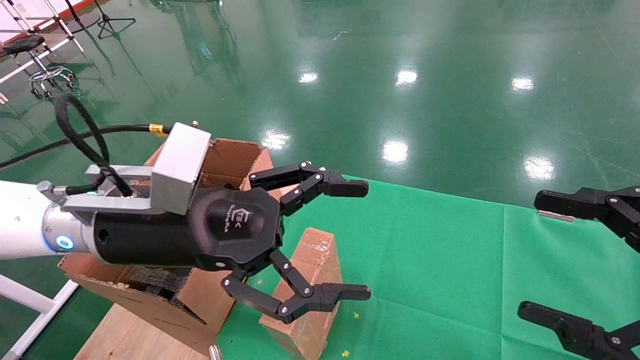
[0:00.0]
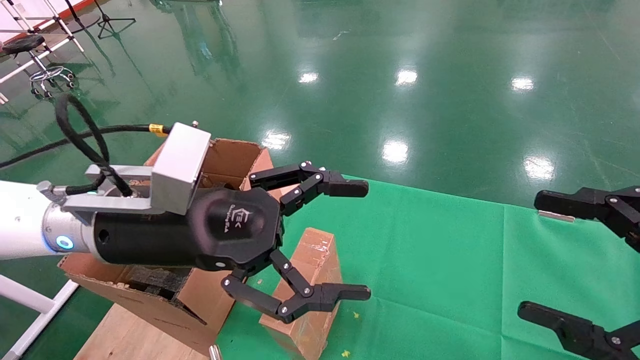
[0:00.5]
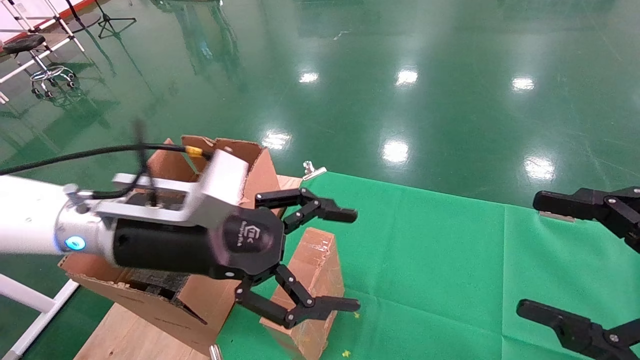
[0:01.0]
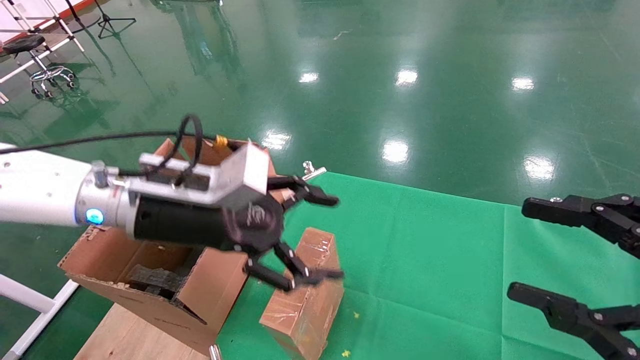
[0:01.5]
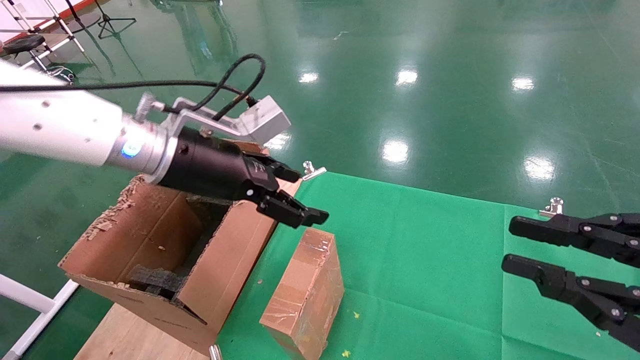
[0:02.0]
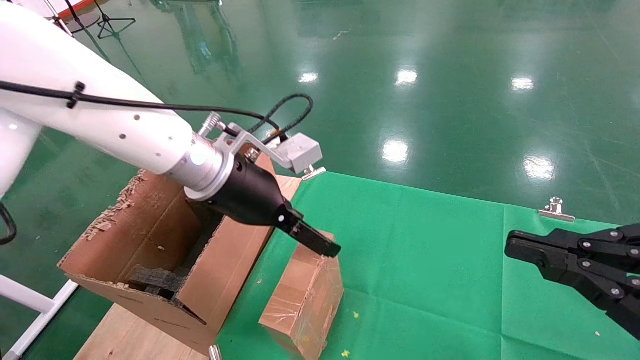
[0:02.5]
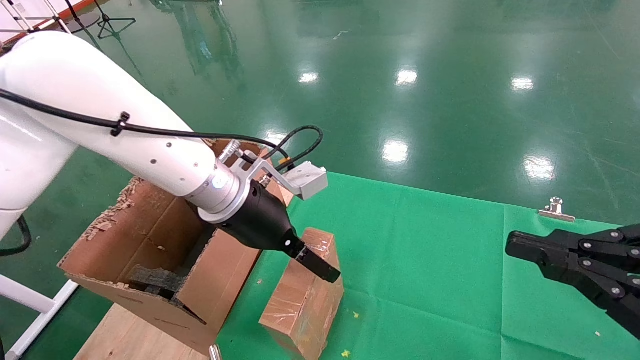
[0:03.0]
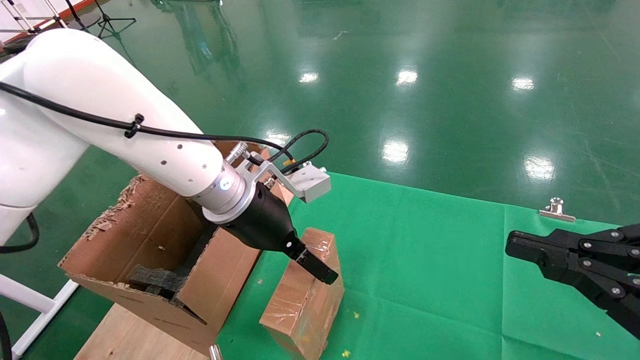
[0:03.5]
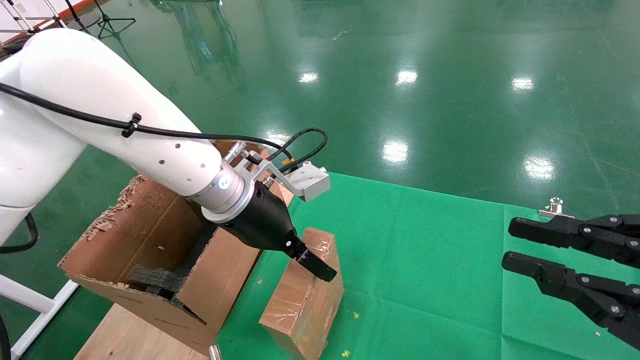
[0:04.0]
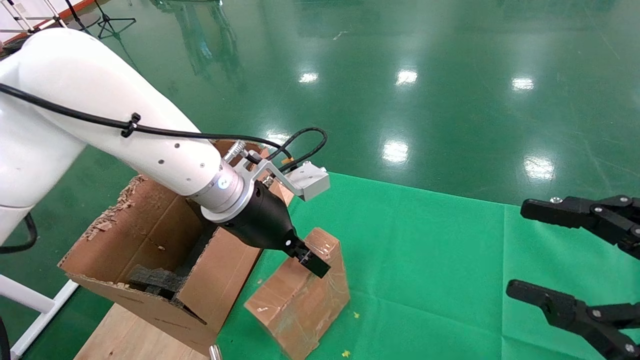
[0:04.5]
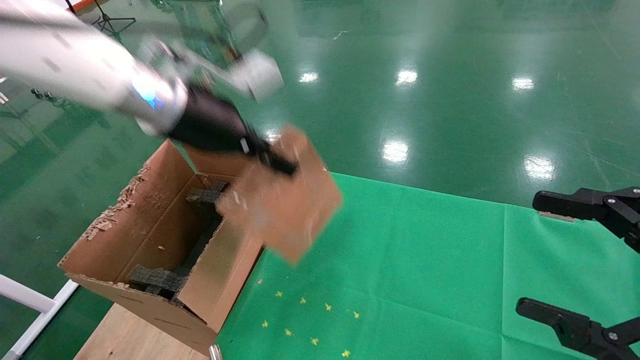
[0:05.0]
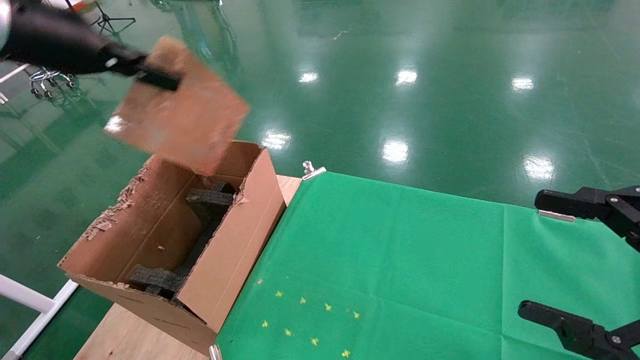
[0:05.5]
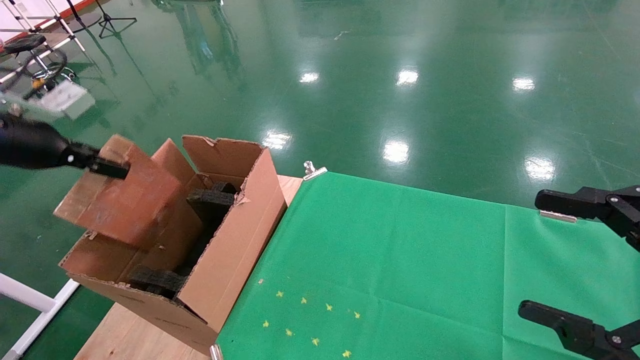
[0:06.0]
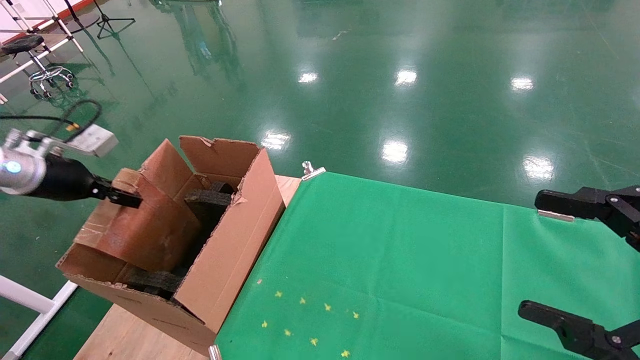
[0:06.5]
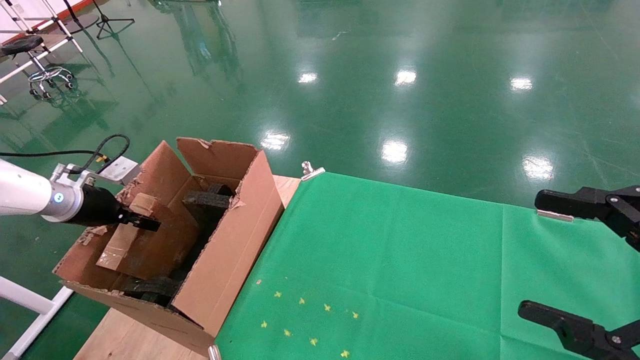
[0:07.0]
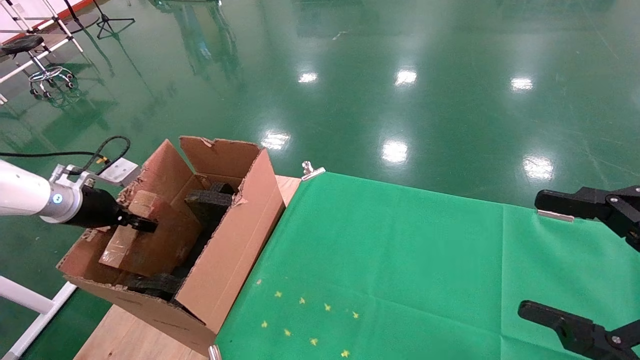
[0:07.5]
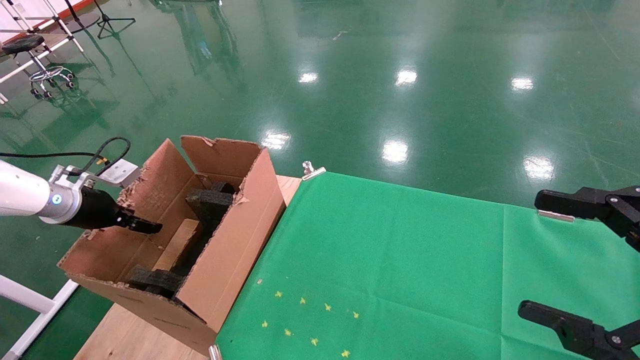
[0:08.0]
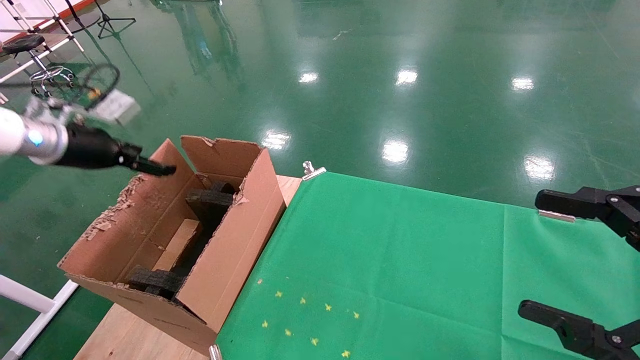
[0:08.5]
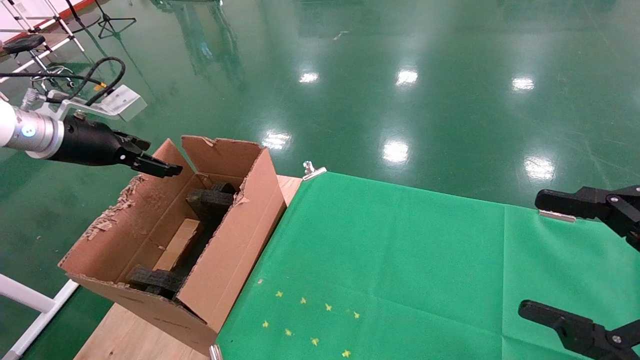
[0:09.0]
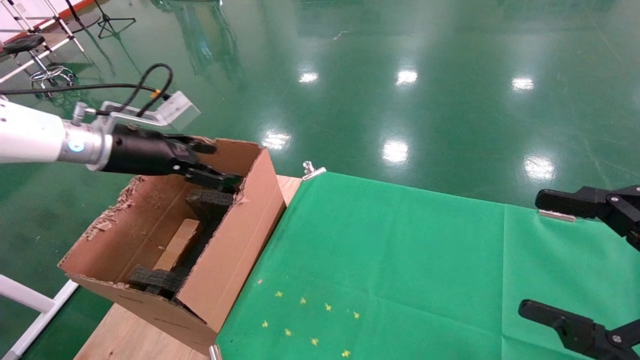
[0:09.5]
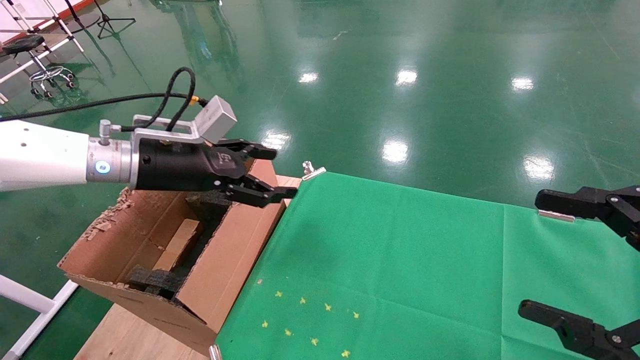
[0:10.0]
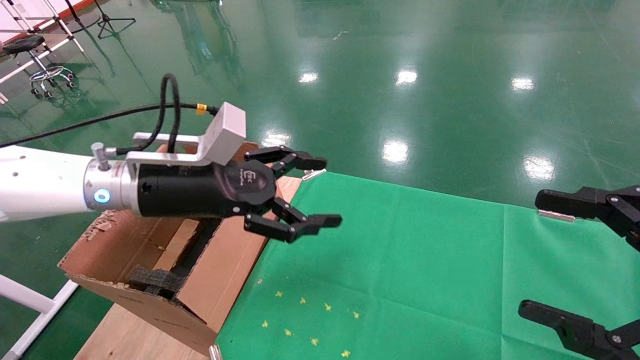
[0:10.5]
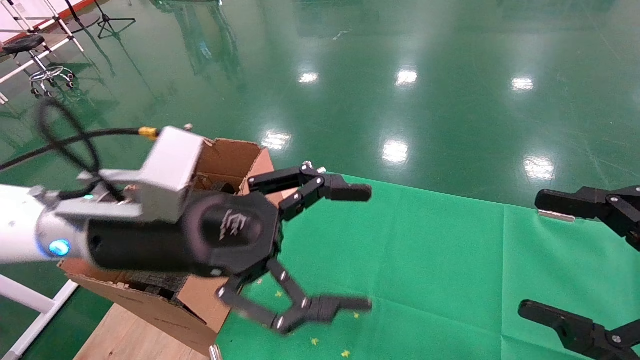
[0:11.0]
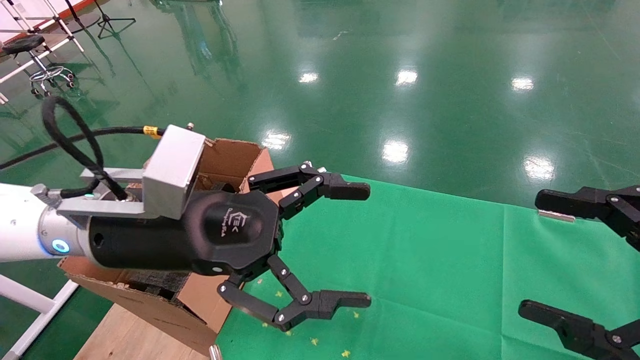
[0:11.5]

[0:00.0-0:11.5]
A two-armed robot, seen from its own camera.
Task of the whole recording: using a robotic arm to pick up a cardboard box and palace it the carton.
Step, 0:01.0 to 0:04.5: Pick up the mouse and the power cord paper box.
Step, 0:05.0 to 0:08.5: Place the mouse and the power cord paper box into the container.
0:00.0 to 0:02.0: The left gripper is displaced forward by about 10 cm. The right gripper closes its fingers.
0:02.0 to 0:04.0: The left gripper shifts some 5 cm to the right.
0:04.0 to 0:06.0: The left gripper goes roughly 35 cm to the left, and closes its fingers. The right gripper opens its fingers.
0:06.0 to 0:07.5: The left gripper travels downward and forward by about 15 cm.
0:07.5 to 0:09.5: The left gripper goes approximately 15 cm to the right and upward, and opens its fingers.
0:09.5 to 0:11.5: The left gripper moves to the right and backward, roughly 20 cm.

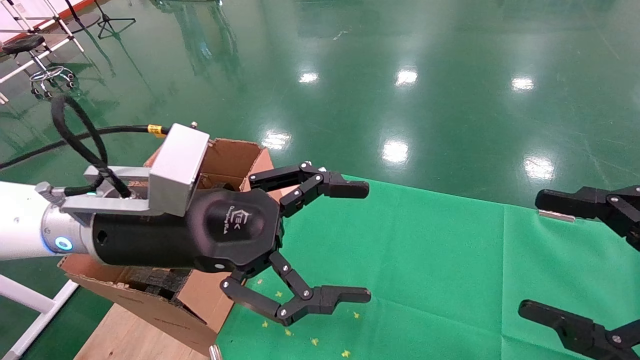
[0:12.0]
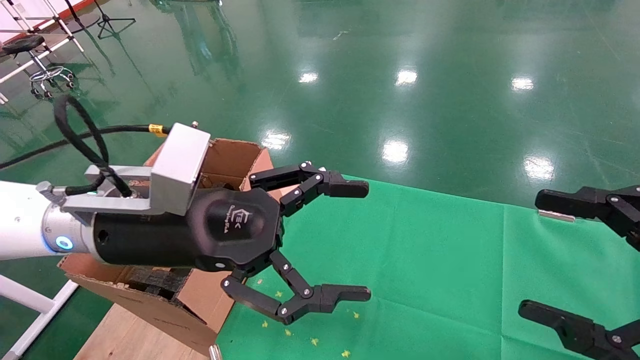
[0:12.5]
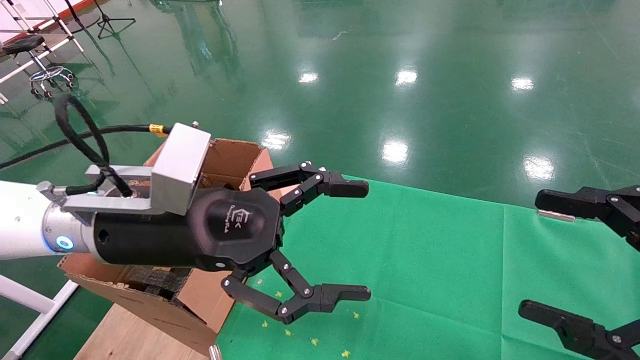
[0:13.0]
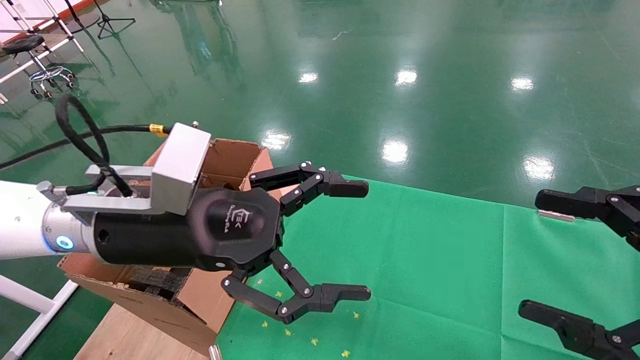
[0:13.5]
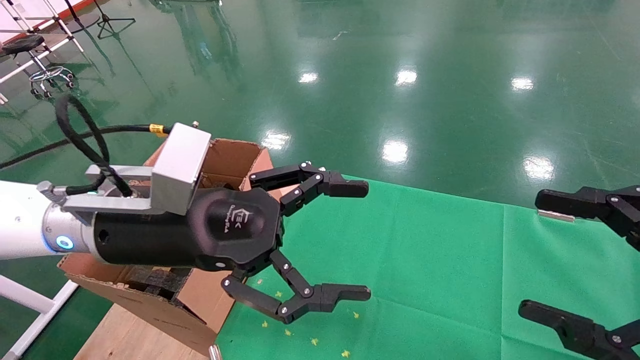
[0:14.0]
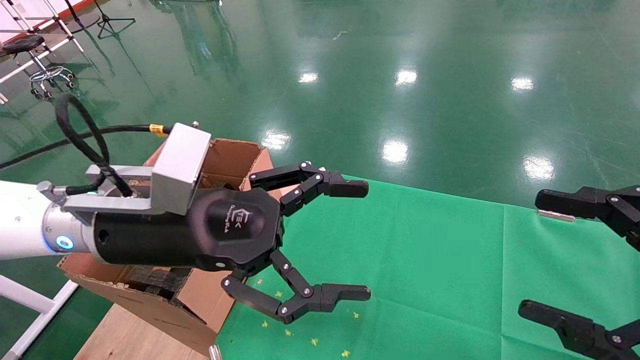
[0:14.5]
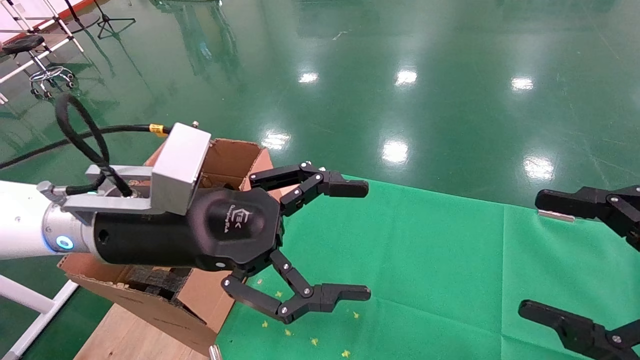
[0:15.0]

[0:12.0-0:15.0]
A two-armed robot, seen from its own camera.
Task of the whole recording: using a robotic arm to pick up a cardboard box and palace it the carton.
0:12.0 to 0:15.0: Neither gripper changes place.

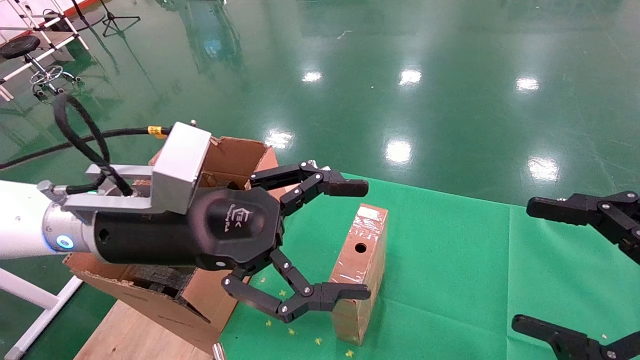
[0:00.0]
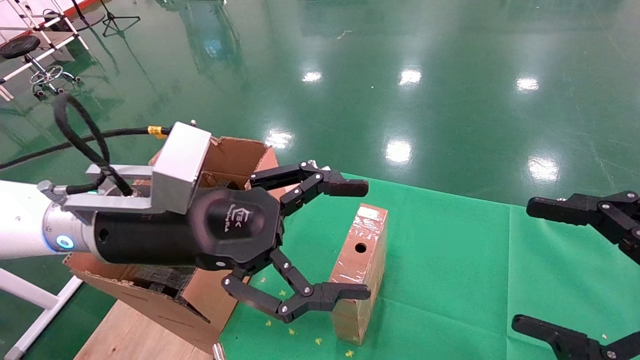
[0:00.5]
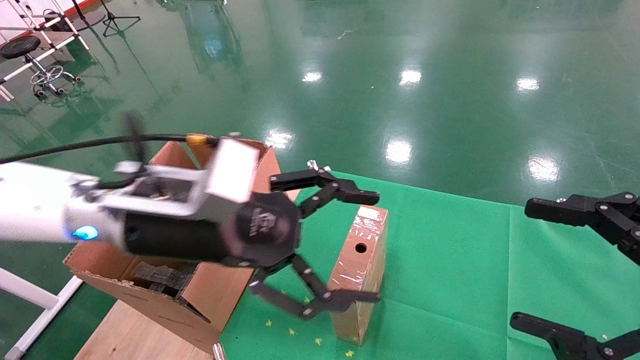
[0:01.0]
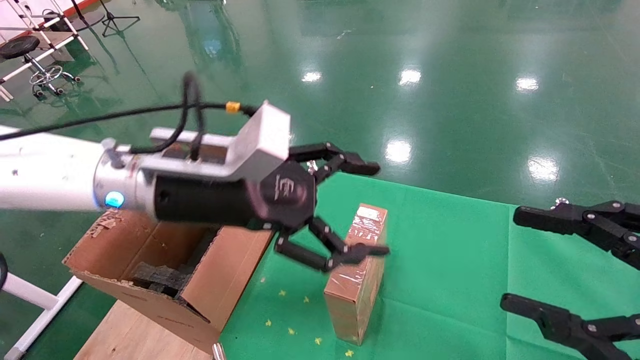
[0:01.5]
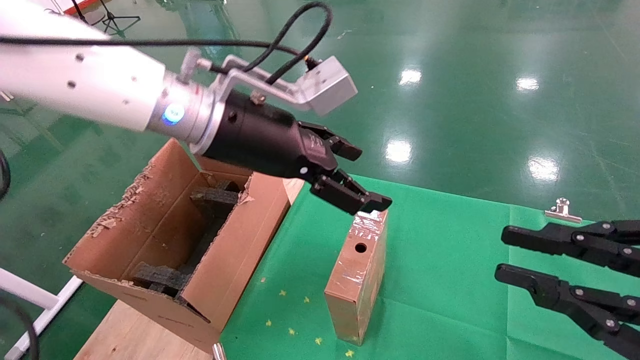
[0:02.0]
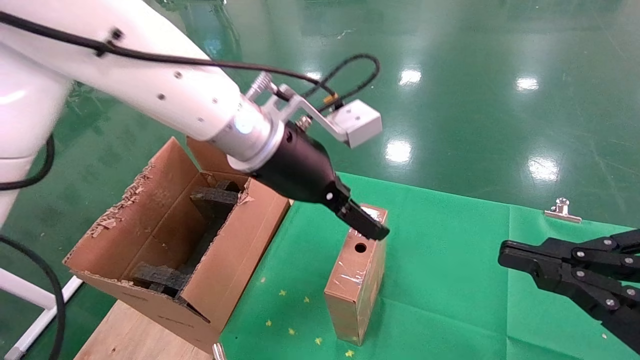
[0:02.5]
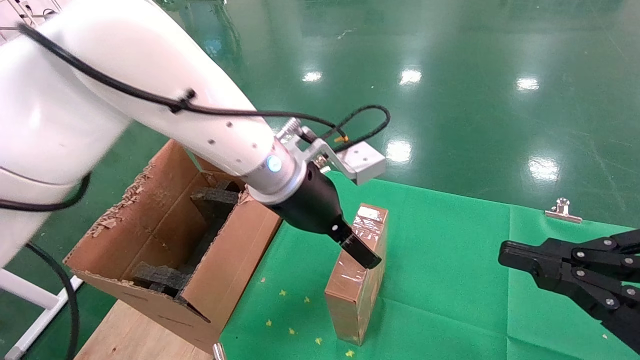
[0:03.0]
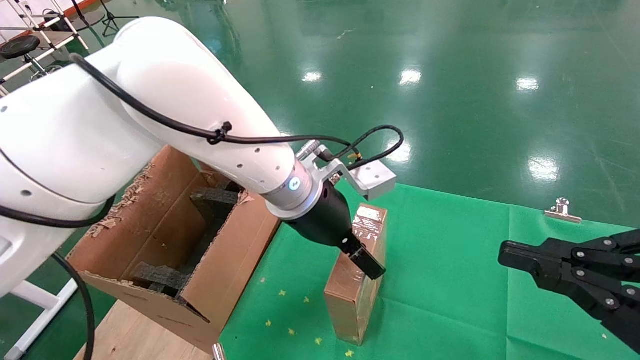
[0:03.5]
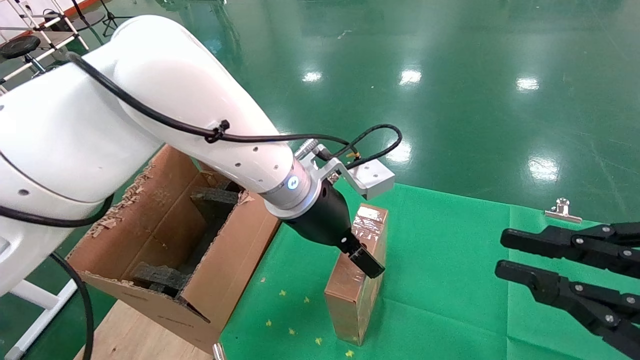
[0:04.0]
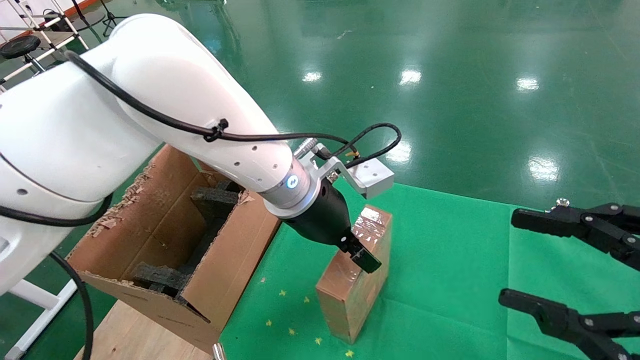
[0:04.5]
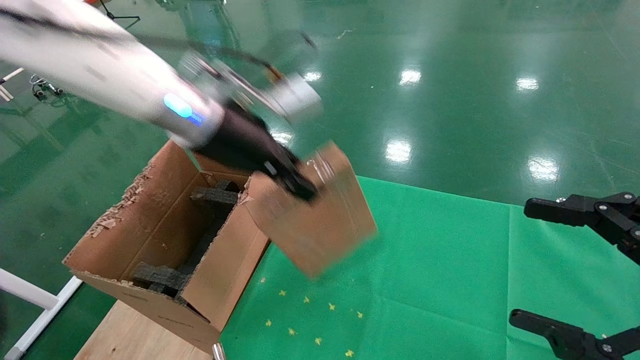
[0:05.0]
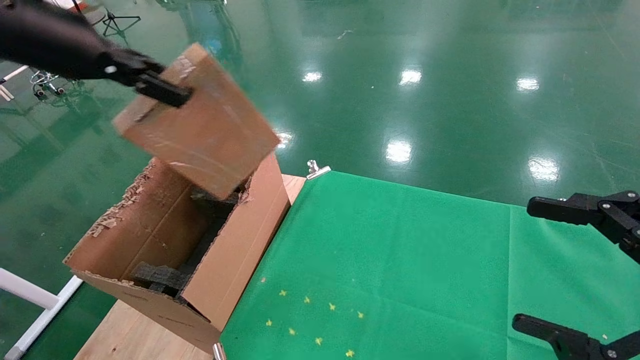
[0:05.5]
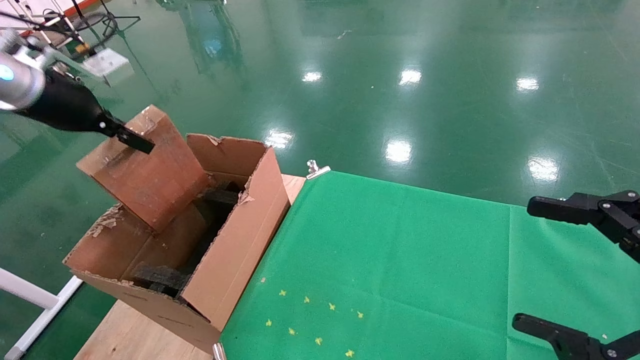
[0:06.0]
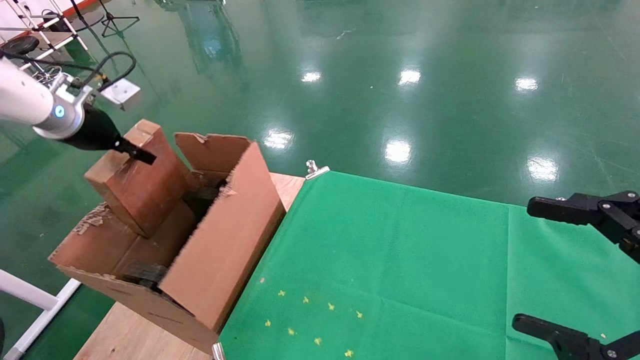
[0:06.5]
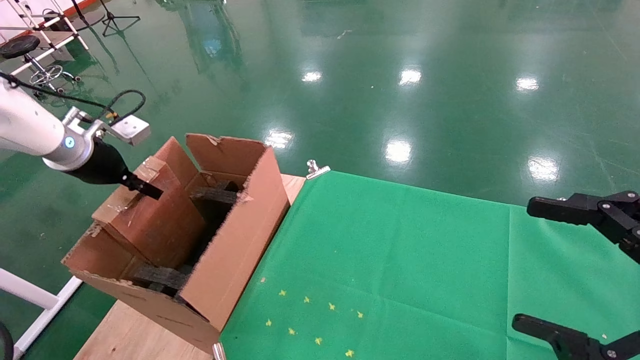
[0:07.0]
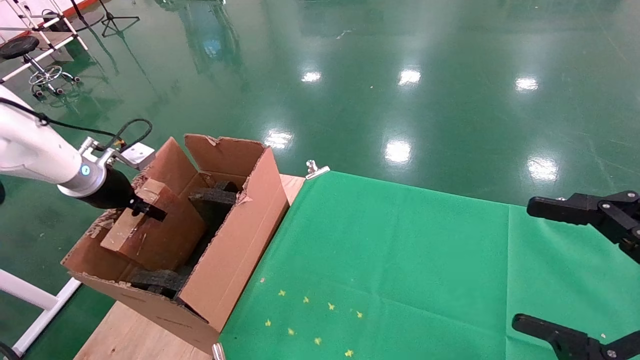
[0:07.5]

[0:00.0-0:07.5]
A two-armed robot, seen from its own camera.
Task of the whole recording: using a robotic arm to pick up a cardboard box and palace it the carton.
Step, 0:01.0 to 0:04.5: Pick up the mouse and the power cord paper box.
0:00.0 to 0:02.0: The right gripper closes. The left gripper goes roughly 15 cm forward, upward and to the right.
0:02.0 to 0:04.0: The left gripper goes roughly 10 cm downward and to the right.
0:04.0 to 0:05.5: The left gripper travels to the left and upward by some 35 cm, and closes up. Meanwhile the right gripper opens.
0:05.5 to 0:07.5: The left gripper shifts approximately 25 cm downward, to the left and forward.
